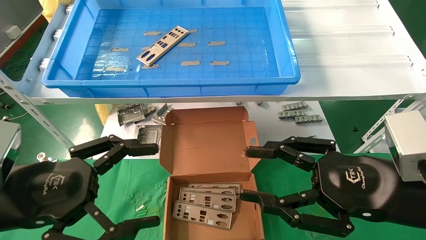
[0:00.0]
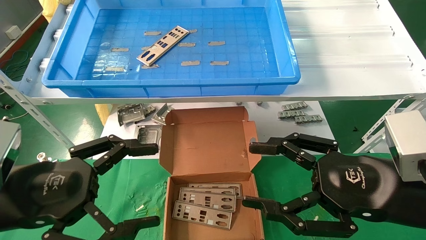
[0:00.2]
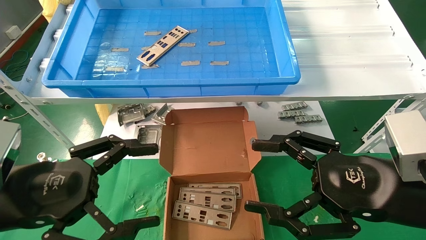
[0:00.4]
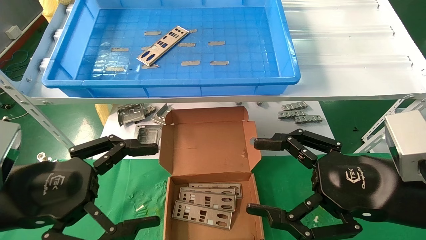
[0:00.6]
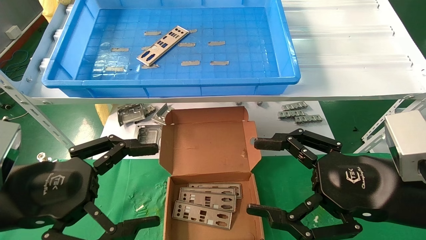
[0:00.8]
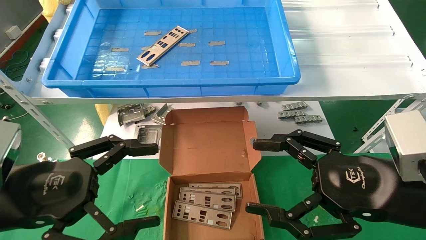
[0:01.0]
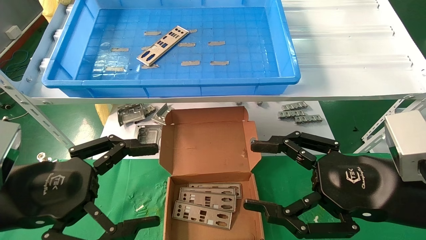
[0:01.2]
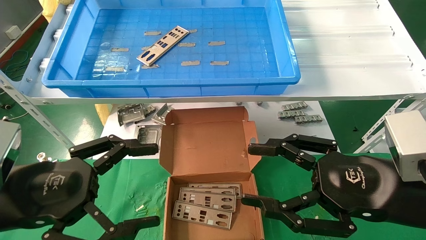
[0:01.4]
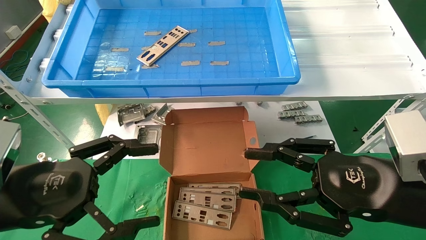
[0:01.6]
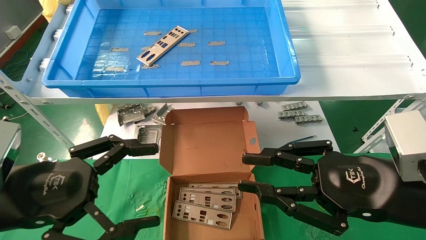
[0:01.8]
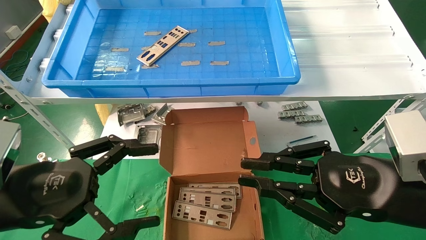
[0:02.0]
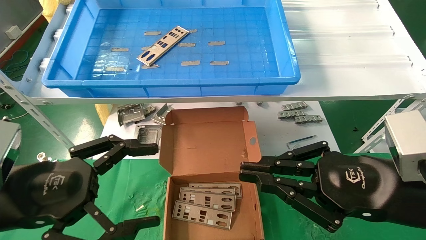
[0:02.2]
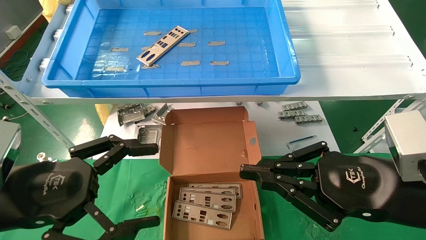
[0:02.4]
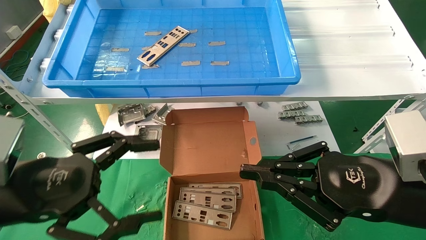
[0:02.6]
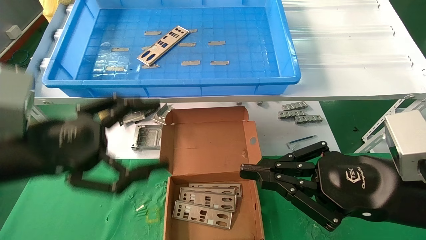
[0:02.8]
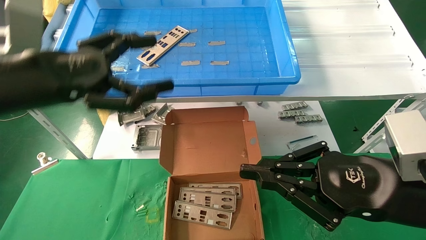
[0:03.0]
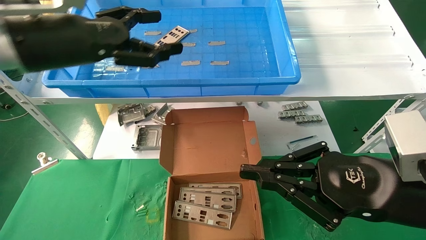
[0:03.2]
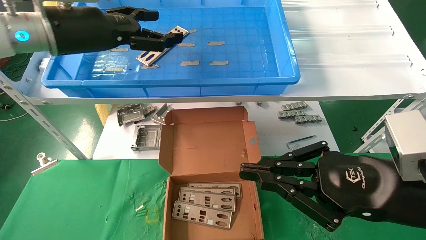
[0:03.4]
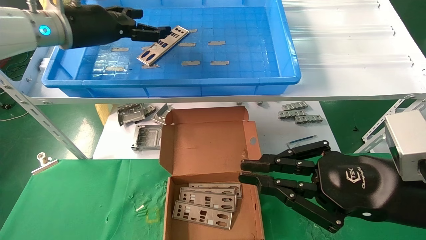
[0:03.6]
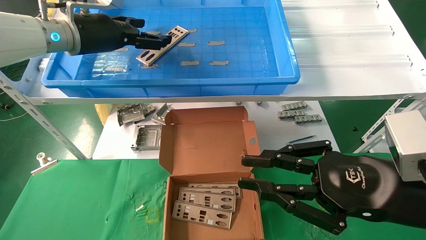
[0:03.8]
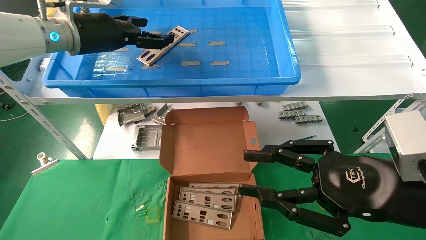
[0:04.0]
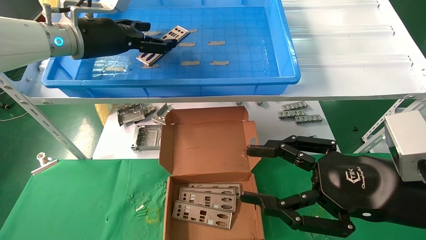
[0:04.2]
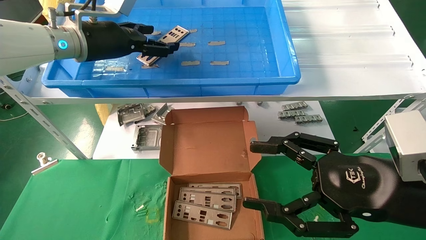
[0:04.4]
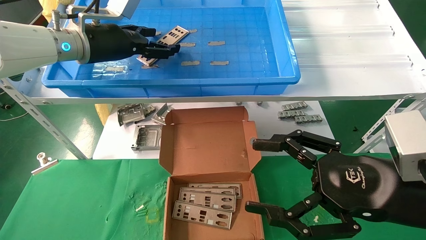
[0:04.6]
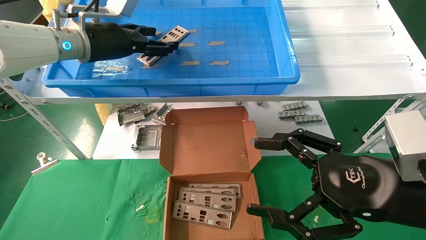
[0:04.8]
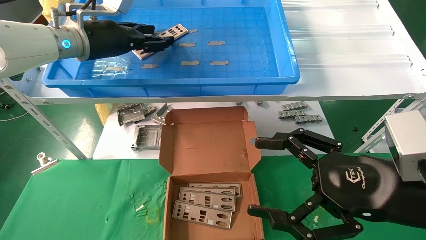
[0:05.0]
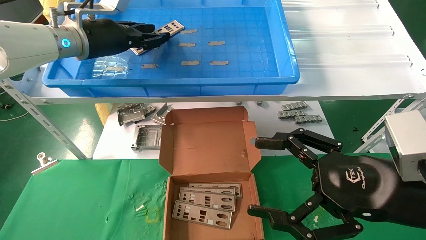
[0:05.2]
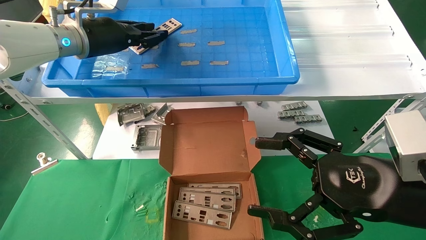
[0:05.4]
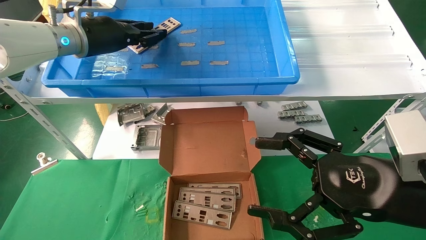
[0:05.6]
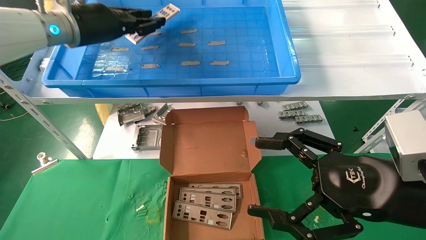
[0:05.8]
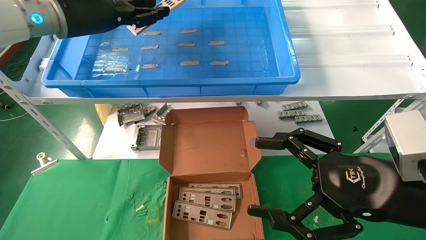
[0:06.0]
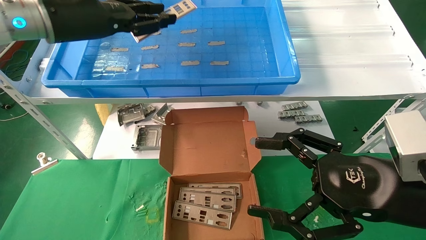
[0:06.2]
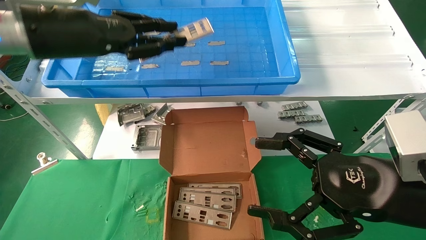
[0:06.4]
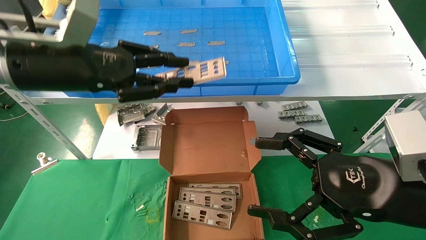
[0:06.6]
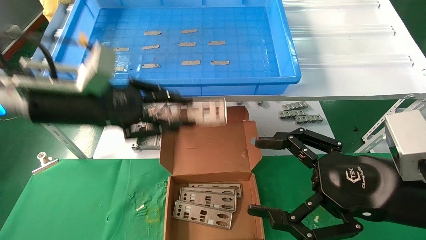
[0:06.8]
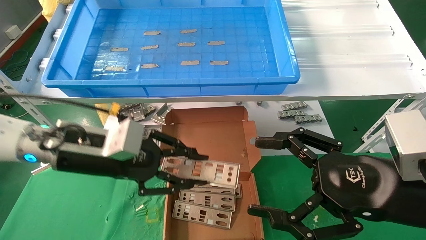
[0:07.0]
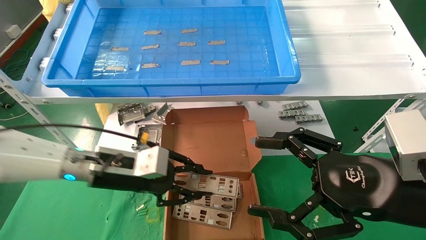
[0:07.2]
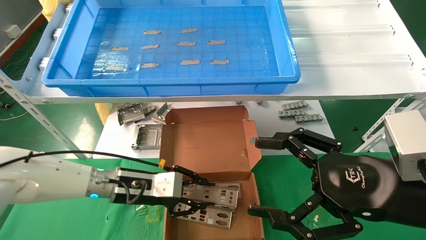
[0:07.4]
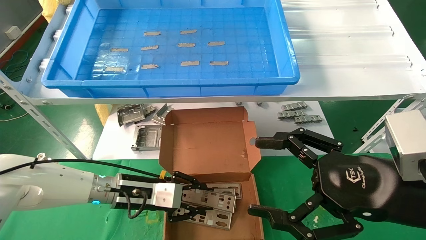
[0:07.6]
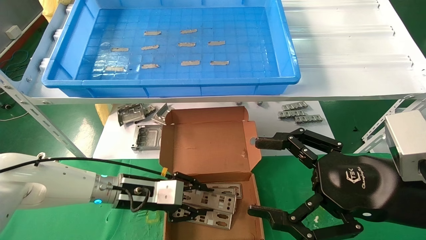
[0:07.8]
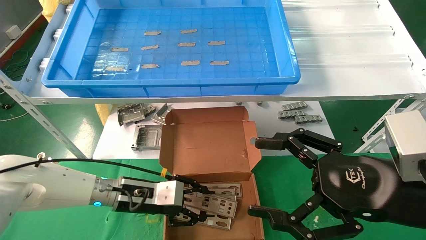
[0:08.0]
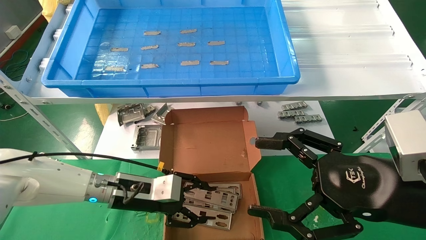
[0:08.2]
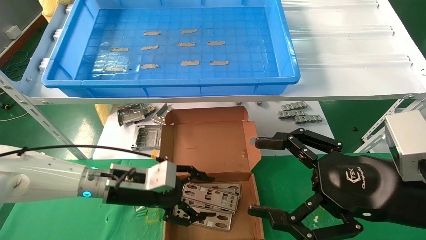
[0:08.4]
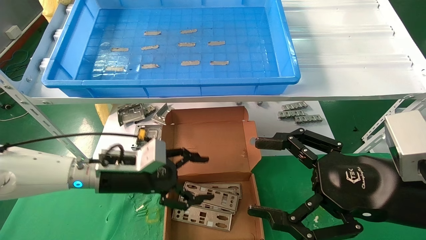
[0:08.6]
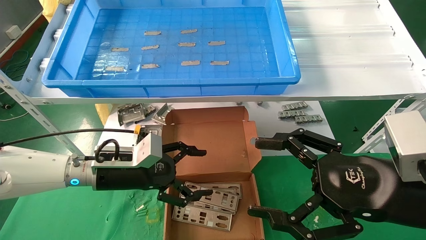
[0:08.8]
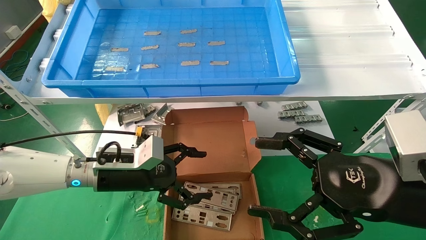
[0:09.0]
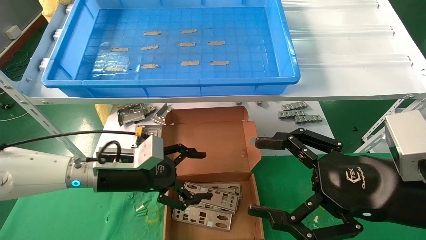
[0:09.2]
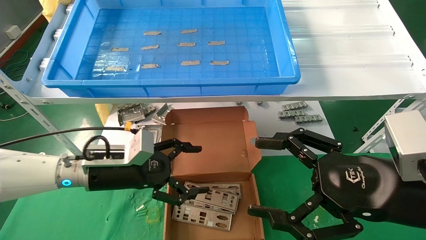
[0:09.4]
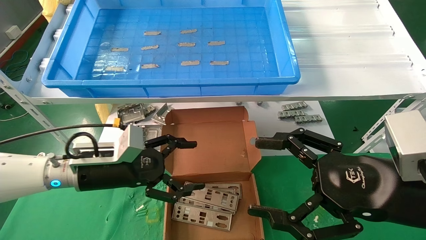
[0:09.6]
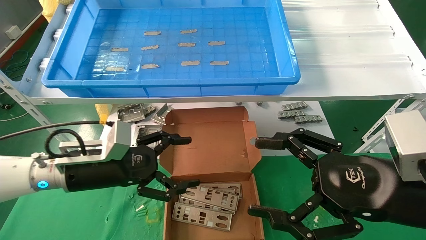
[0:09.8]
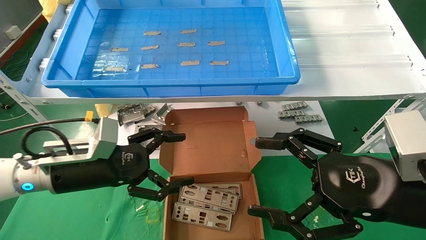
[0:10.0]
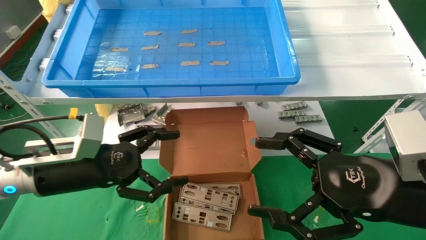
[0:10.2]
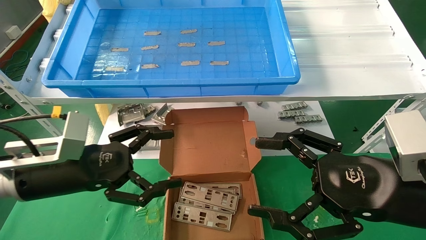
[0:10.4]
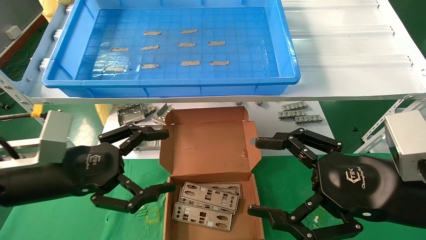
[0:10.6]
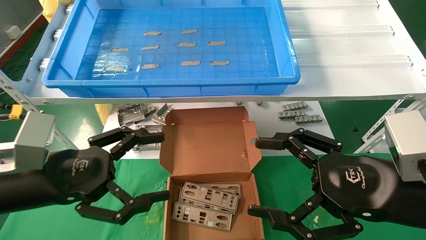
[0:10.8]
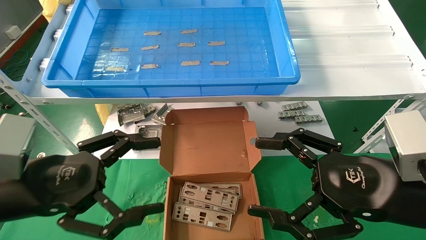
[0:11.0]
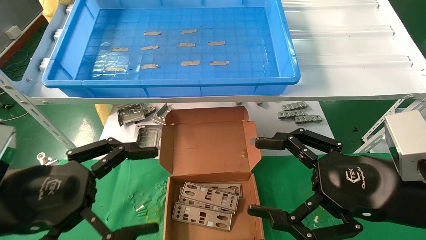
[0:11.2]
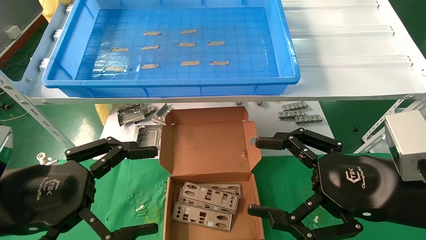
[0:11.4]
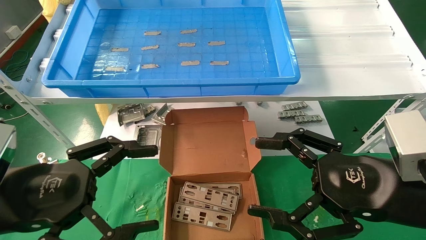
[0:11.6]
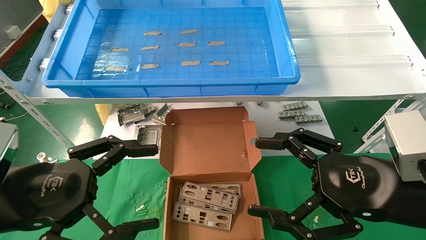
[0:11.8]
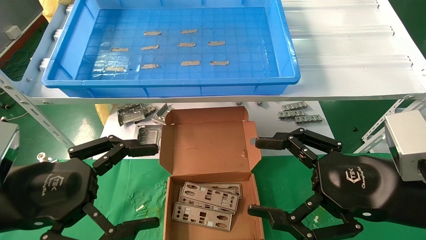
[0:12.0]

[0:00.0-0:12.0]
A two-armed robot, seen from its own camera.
Task of the whole recording: pick up the parts on the tray and put them in the cardboard box.
Step, 0:03.0 to 0:05.2: Pick up the IO bracket from the container box.
Step, 0:05.4 to 0:08.4: Place the IO bracket into the ingredient slot.
0:00.0 to 0:01.6: Both grippers stay about where they are.
0:01.6 to 0:03.0: The right gripper closes up. Meanwhile the left gripper goes about 15 cm upward and forward.
0:03.0 to 0:04.4: The left gripper travels forward by about 15 cm. The right gripper opens its fingers.
0:04.4 to 0:06.0: The right gripper opens up. Meanwhile the left gripper closes its fingers.
0:06.0 to 0:07.6: The left gripper heads downward, covering some 35 cm.
0:07.6 to 0:09.0: The left gripper moves about 5 cm, and opens up.
0:09.0 to 0:10.4: The left gripper is displaced backward and to the left by roughly 10 cm.
0:10.4 to 0:12.0: The left gripper shifts approximately 10 cm backward.

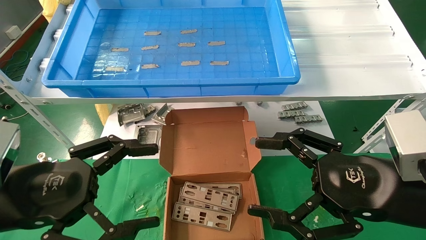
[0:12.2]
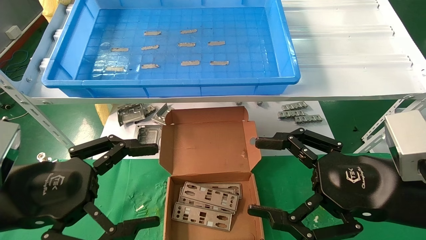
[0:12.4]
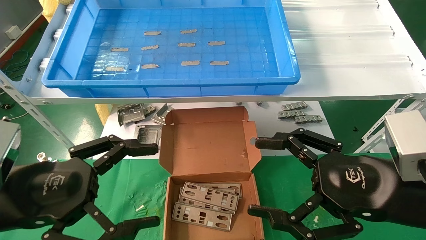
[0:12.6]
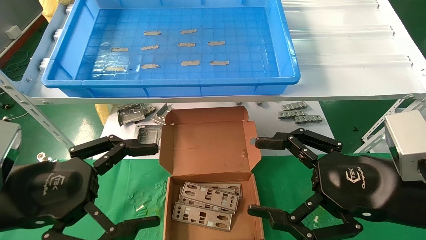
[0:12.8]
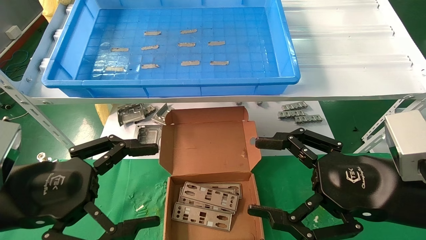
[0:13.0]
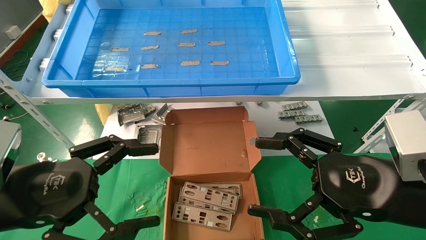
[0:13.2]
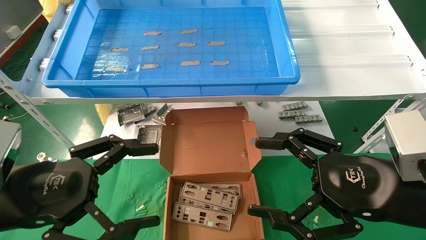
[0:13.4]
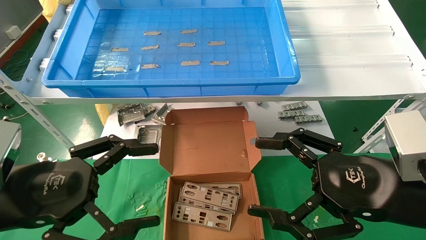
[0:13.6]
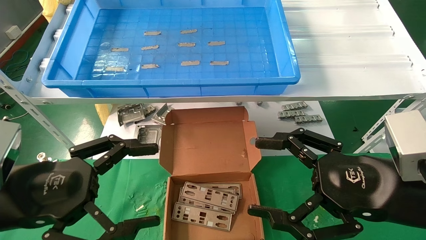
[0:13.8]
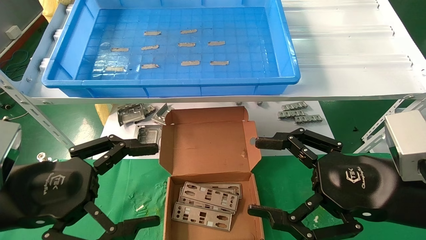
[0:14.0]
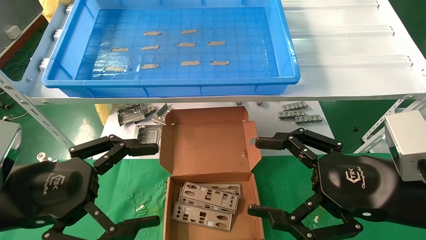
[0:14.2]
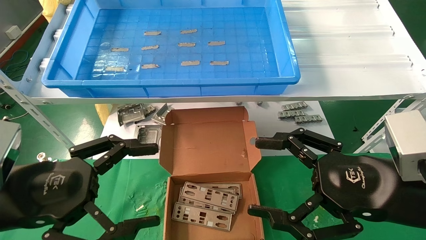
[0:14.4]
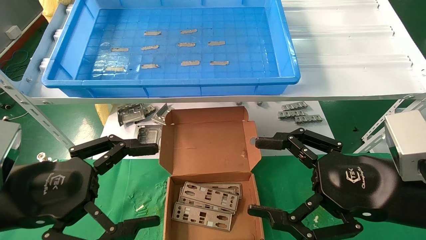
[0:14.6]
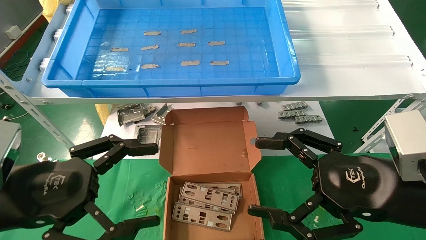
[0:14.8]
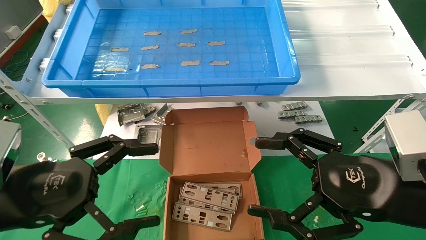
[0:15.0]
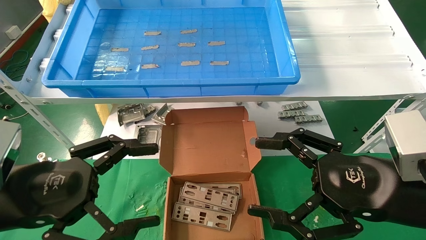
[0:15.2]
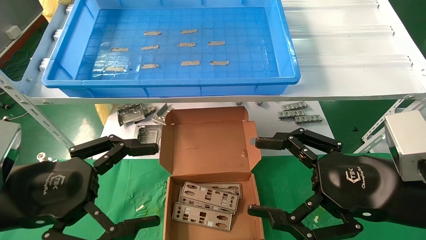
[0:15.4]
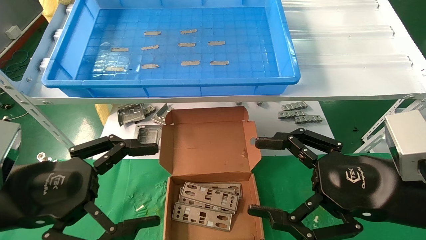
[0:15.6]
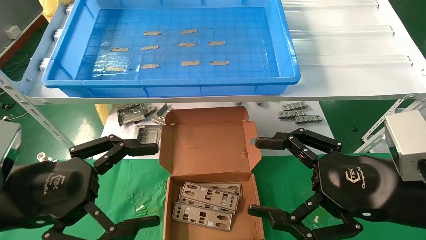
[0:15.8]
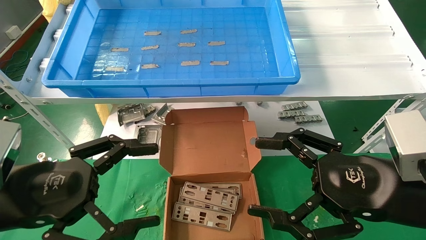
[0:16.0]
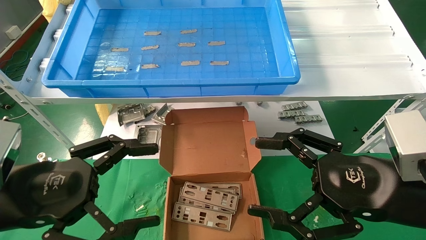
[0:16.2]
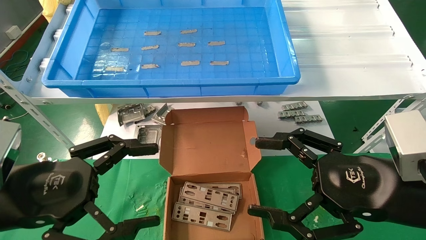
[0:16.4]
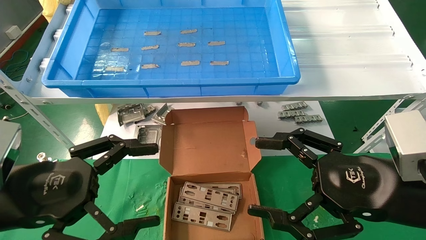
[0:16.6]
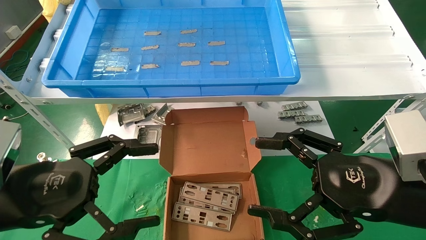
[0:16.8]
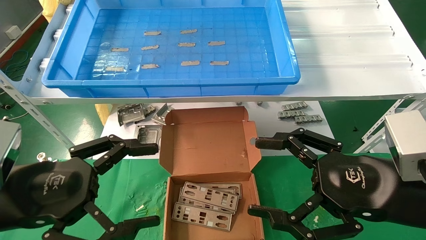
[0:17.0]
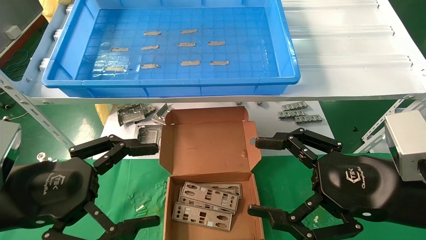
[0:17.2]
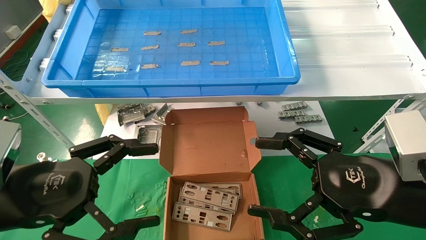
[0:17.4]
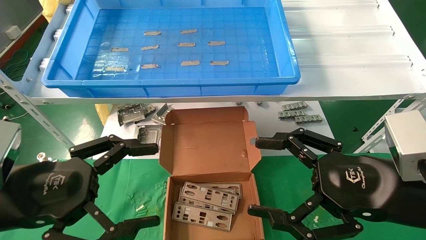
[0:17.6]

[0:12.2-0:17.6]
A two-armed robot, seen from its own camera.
Task of the whole recording: pick up the parts on the tray and put them in the cardboard box.
0:12.2 to 0:17.6: Both grippers stay put.
